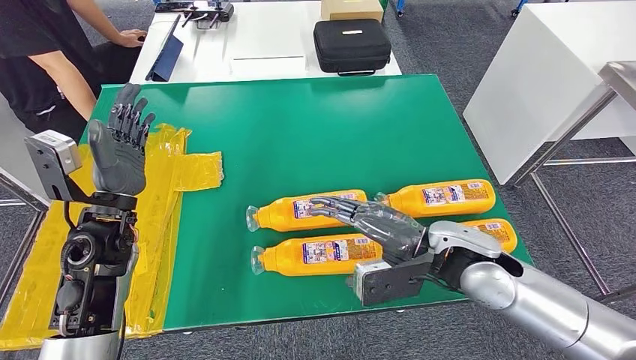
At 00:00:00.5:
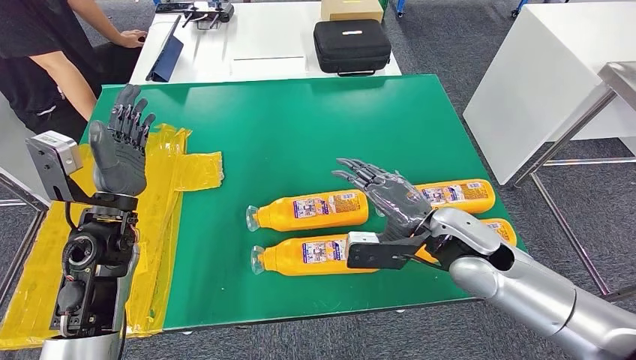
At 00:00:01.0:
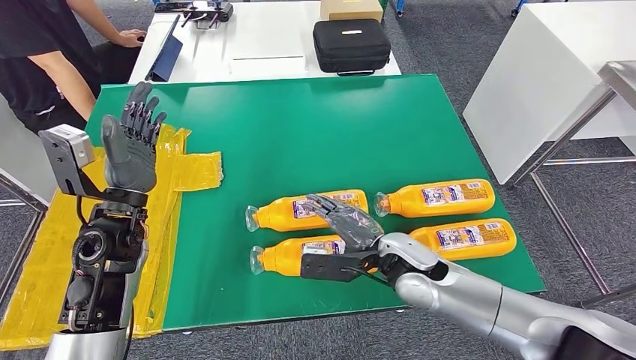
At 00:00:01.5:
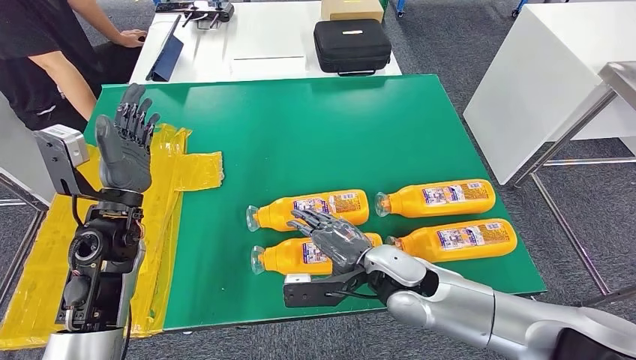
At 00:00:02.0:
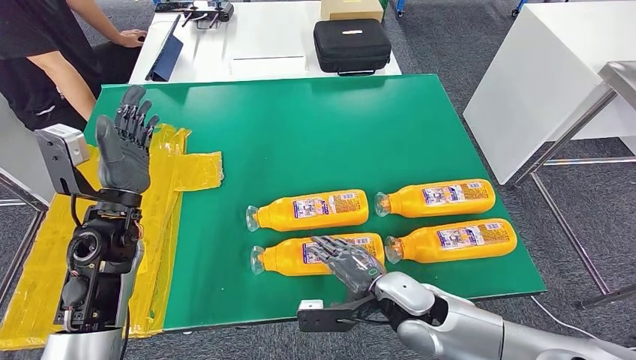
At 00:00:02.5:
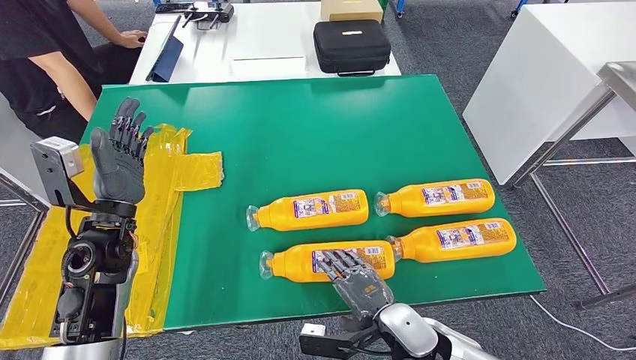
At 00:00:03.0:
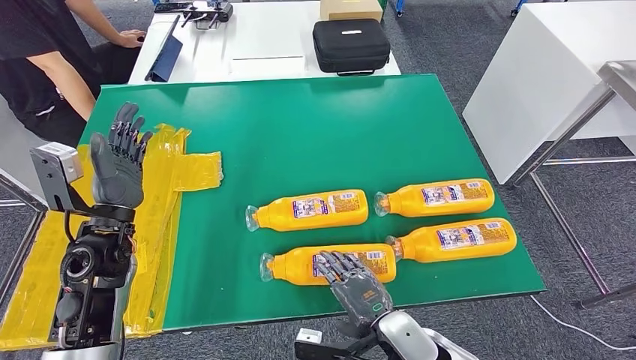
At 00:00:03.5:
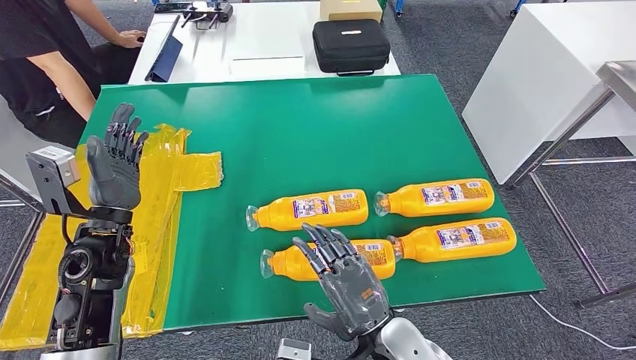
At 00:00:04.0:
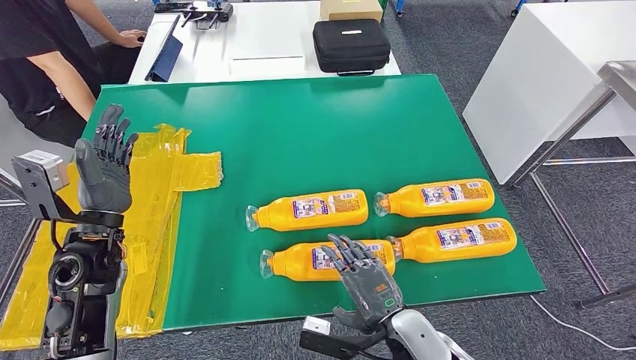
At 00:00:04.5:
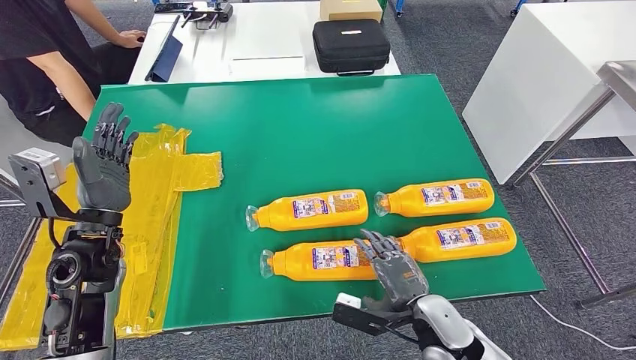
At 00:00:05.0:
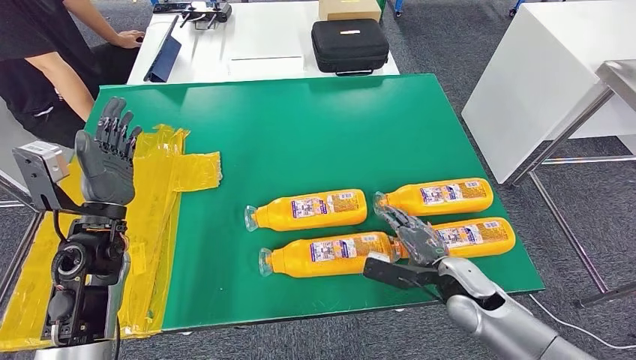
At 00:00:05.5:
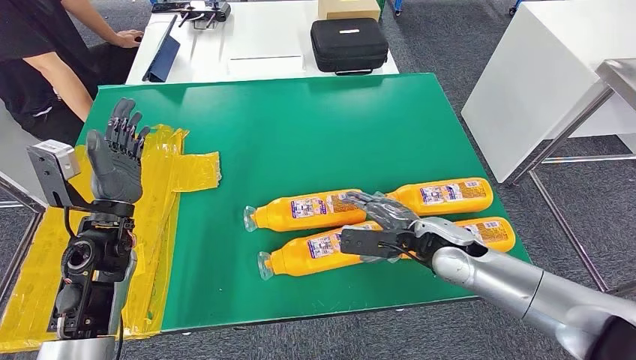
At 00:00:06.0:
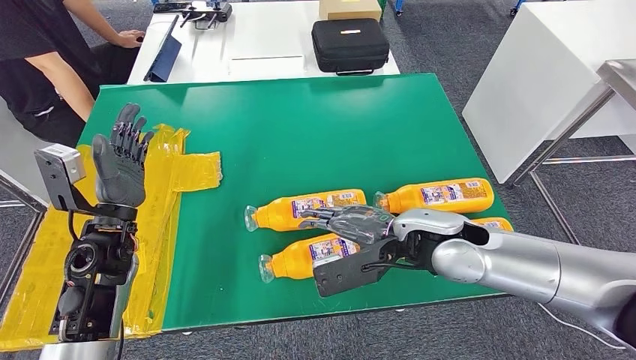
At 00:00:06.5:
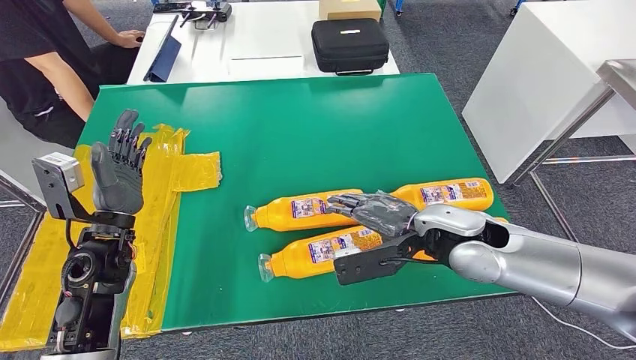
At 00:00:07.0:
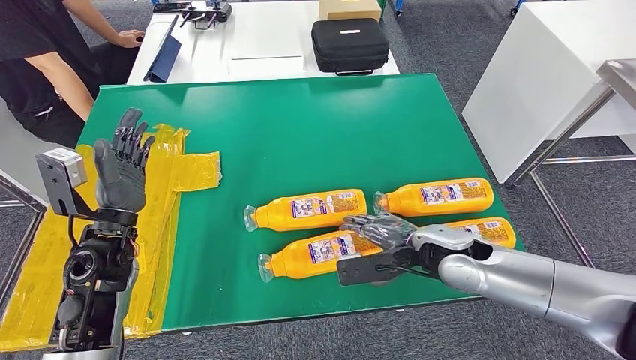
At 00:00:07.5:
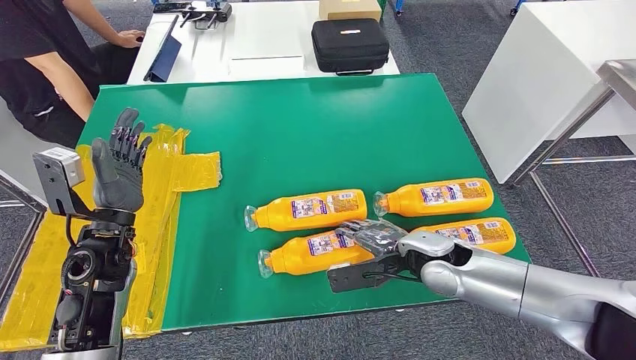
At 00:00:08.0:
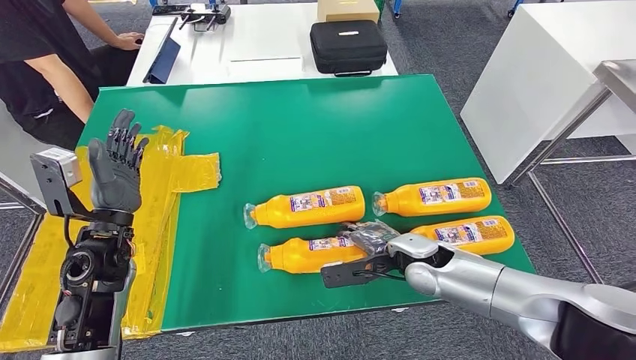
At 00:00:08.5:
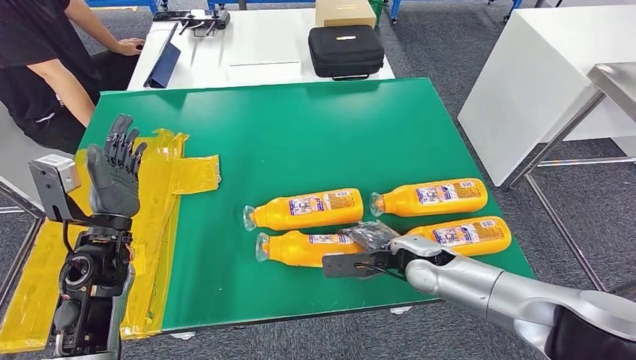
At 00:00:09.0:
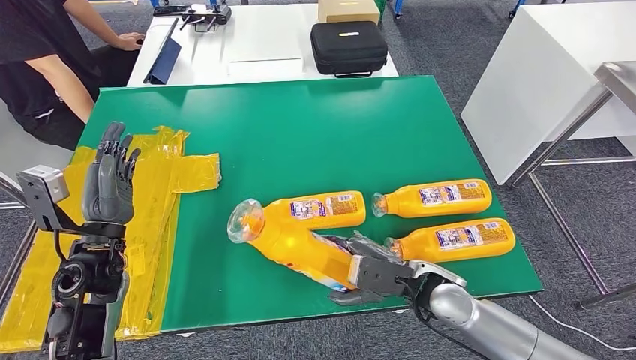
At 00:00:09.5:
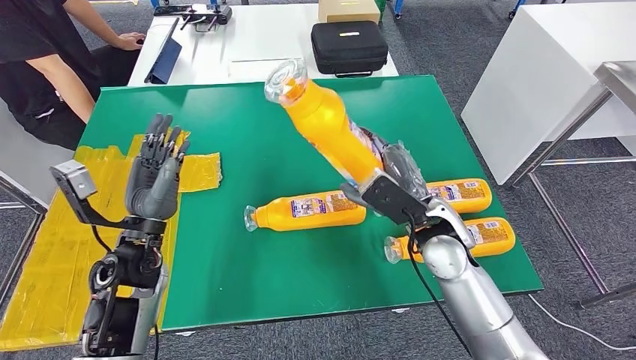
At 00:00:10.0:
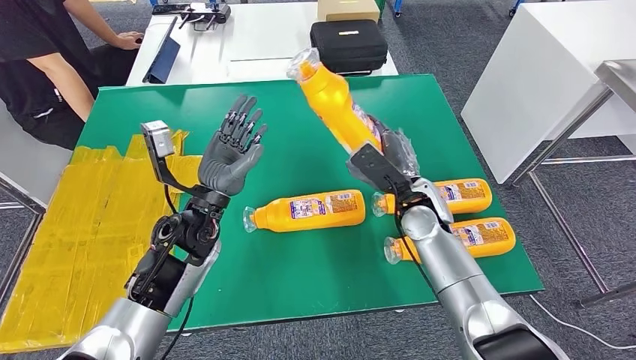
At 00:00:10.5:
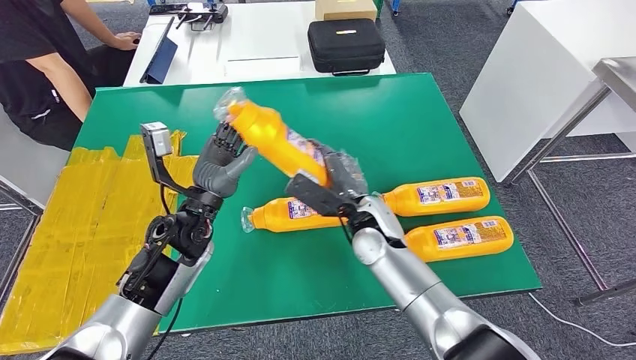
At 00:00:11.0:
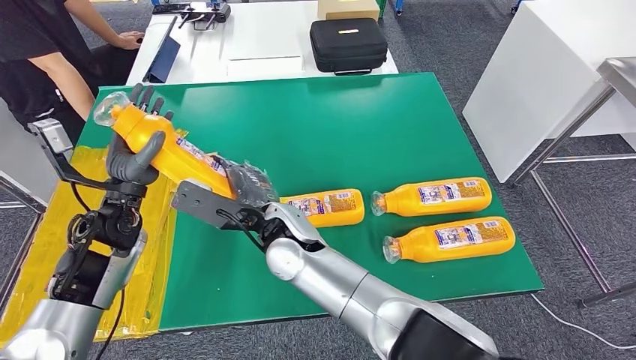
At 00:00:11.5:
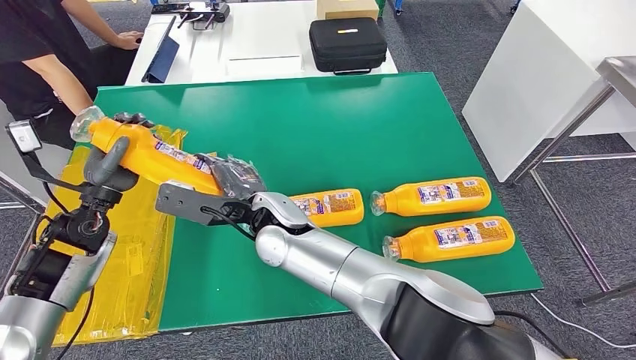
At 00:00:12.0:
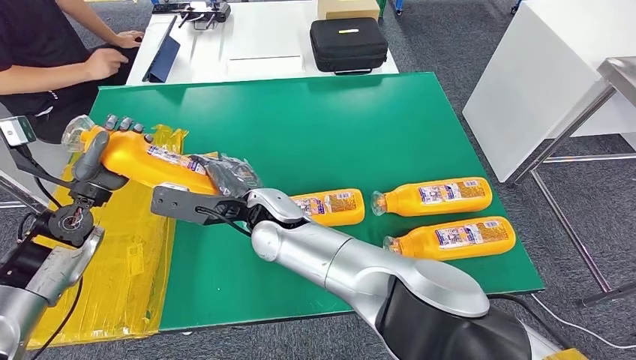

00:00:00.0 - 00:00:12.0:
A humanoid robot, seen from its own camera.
Step, 00:00:00.0 - 00:00:10.0: Take the fast-moving consumer goods bottle from the table.
00:00:00.0 - 00:00:02.0: The right hand shifts some 15 cm downward and to the left.
00:00:02.0 - 00:00:04.0: The right hand heads backward, covering approximately 5 cm.

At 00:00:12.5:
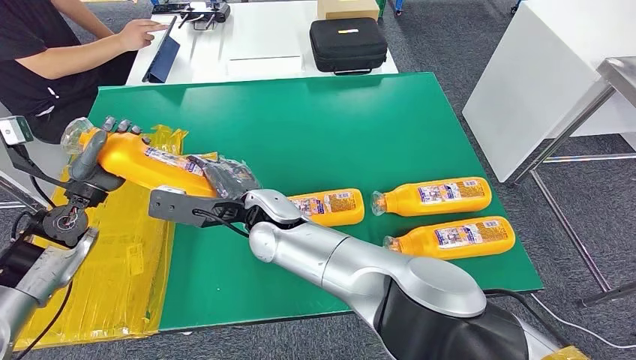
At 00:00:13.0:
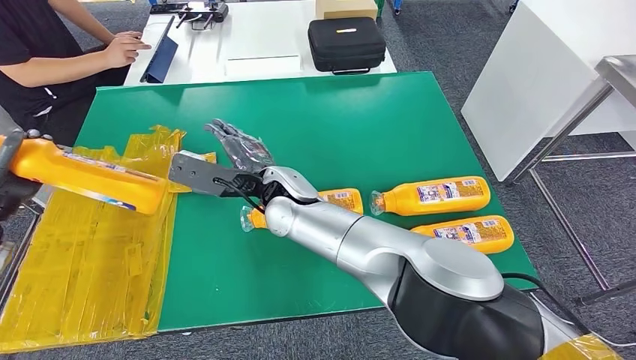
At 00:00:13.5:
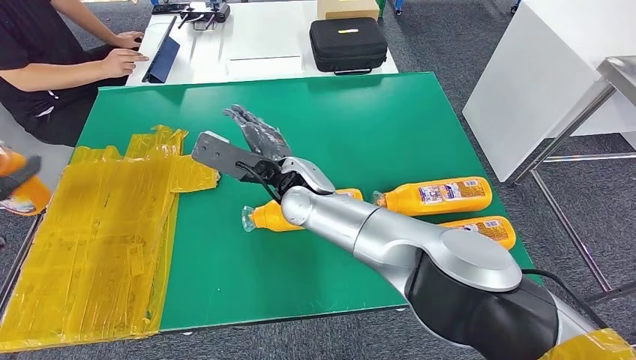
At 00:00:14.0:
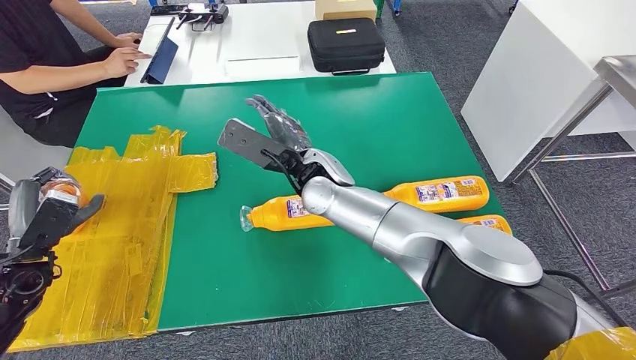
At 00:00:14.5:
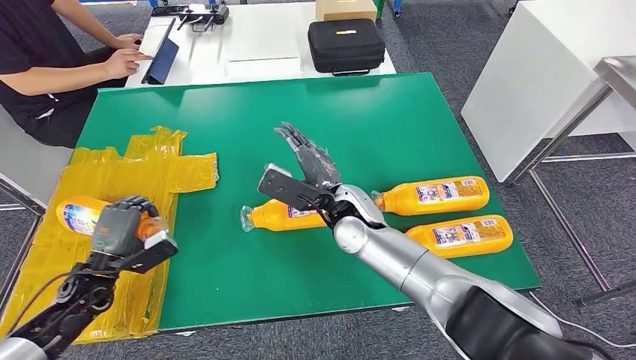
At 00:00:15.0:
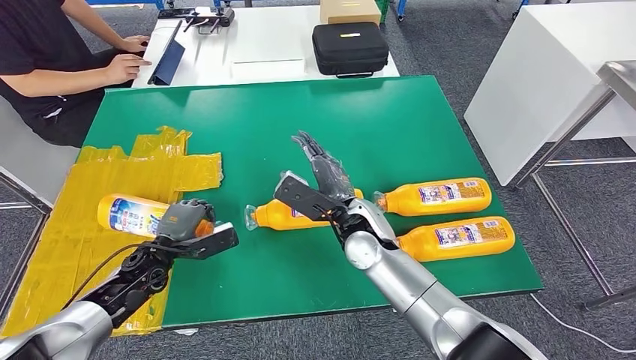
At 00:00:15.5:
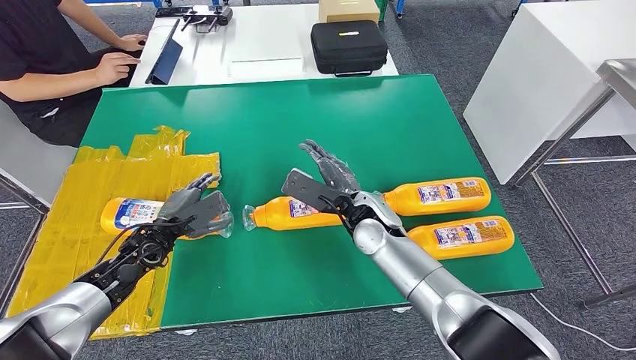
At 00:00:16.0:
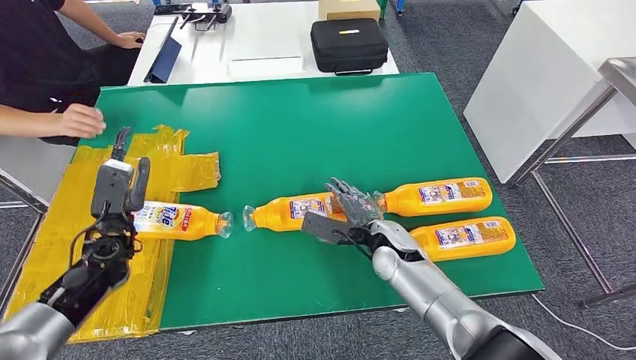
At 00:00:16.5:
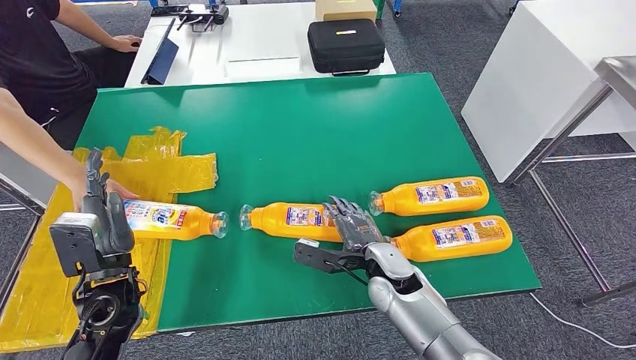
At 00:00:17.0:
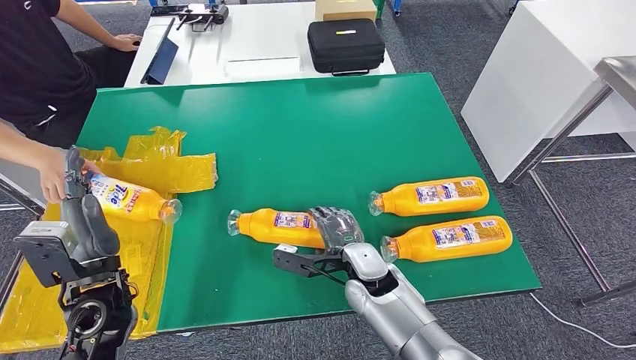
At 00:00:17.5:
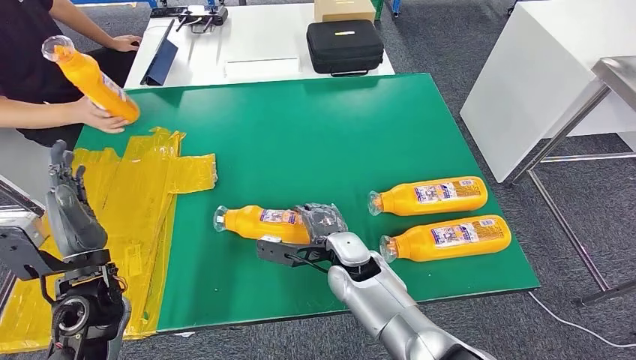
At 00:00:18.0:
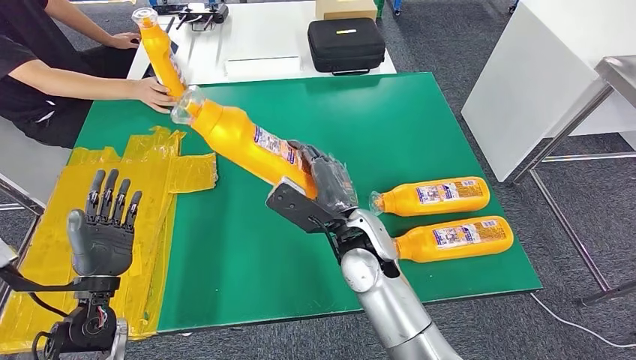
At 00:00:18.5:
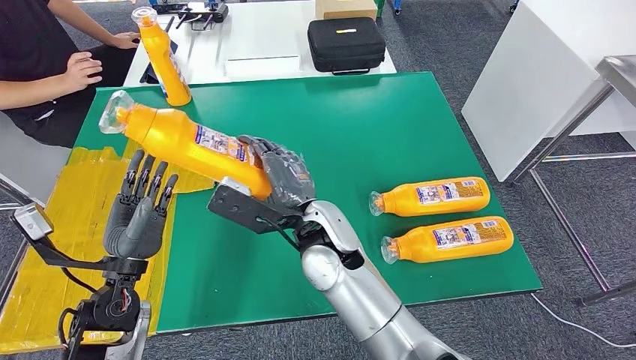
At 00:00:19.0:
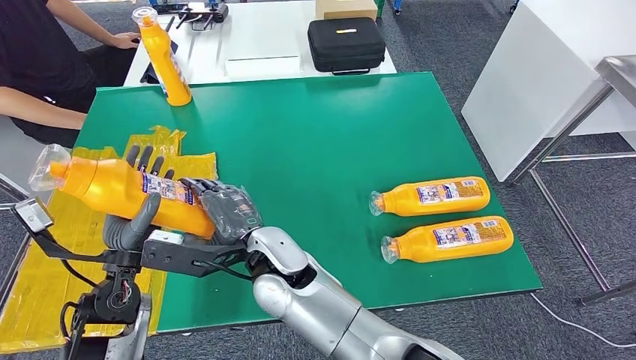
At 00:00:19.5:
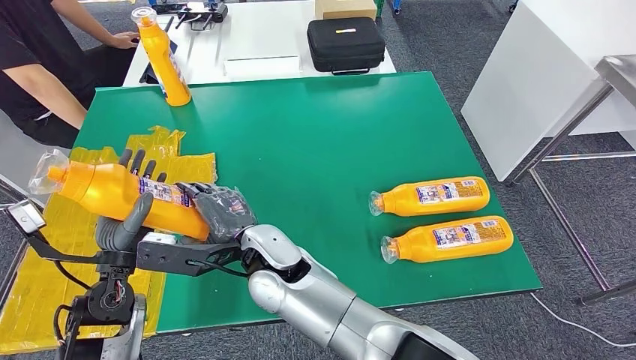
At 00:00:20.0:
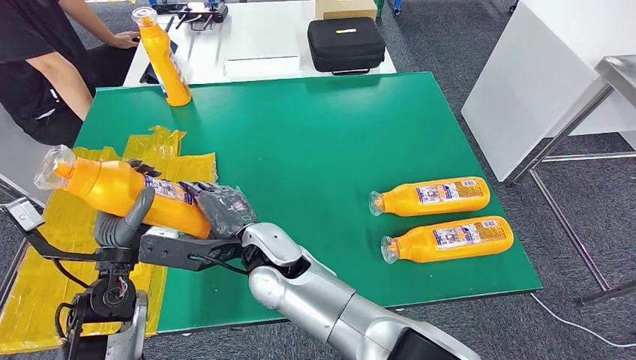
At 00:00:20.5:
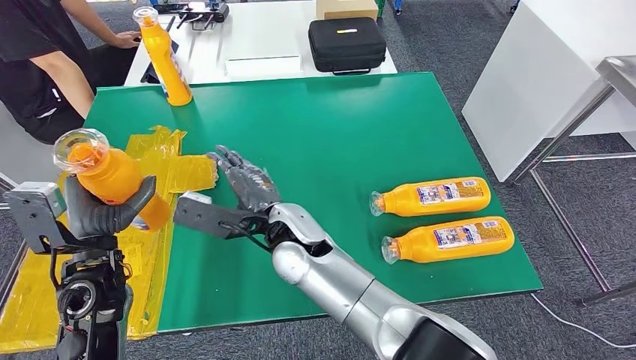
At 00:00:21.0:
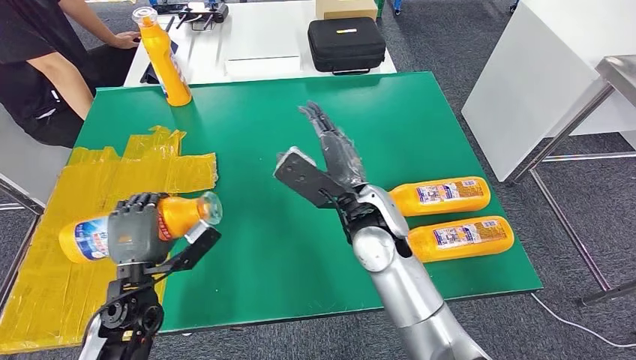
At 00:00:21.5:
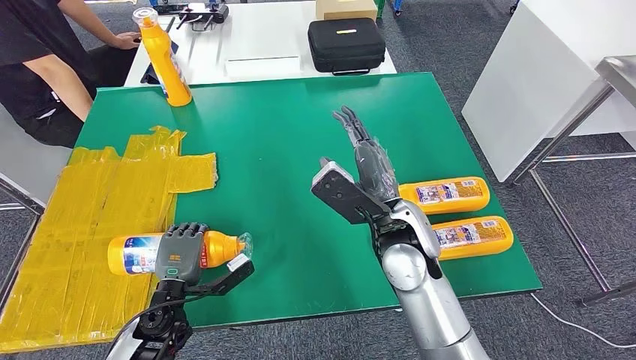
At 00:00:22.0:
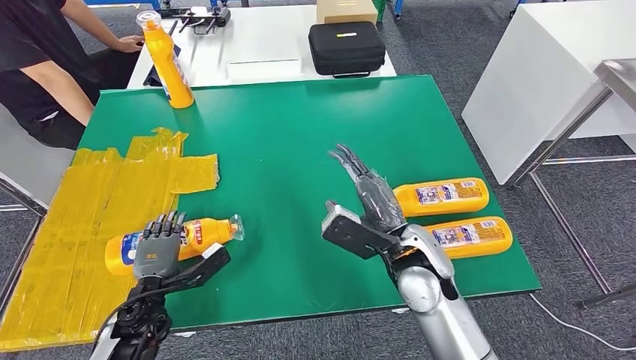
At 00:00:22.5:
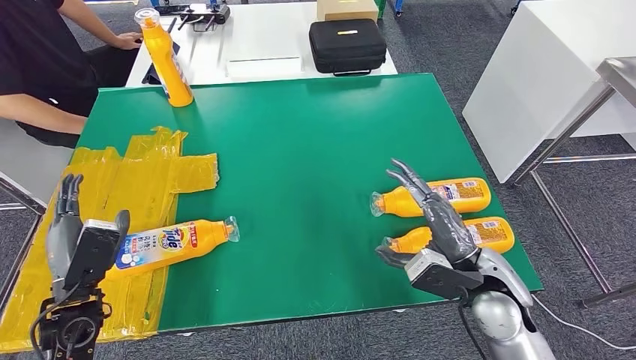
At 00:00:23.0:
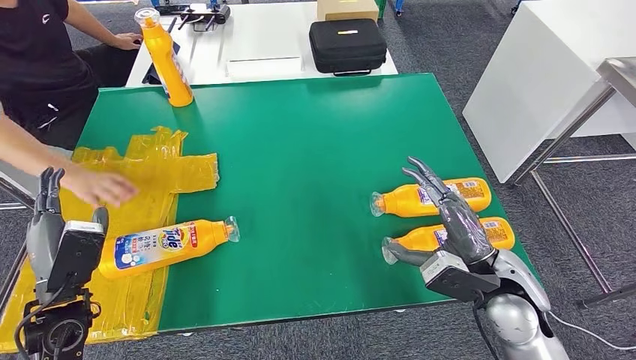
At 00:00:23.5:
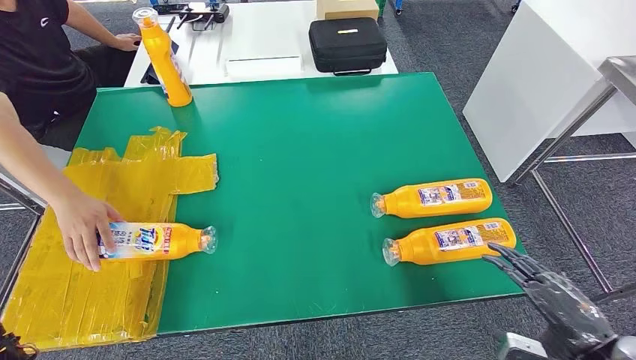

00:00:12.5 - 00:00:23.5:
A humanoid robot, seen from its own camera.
Step, 00:00:12.5 - 00:00:16.0: Flip the fast-moving consumer goods bottle to the front side.
Step, 00:00:16.5 - 00:00:19.5: Pick up the fast-moving consumer goods bottle from the table.
Step, 00:00:20.0 - 00:00:23.0: Flip the fast-moving consumer goods bottle to the front side.
